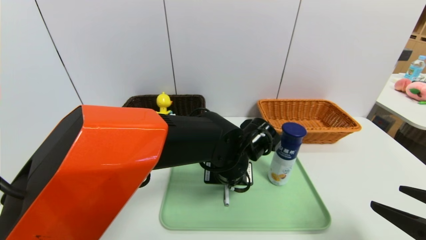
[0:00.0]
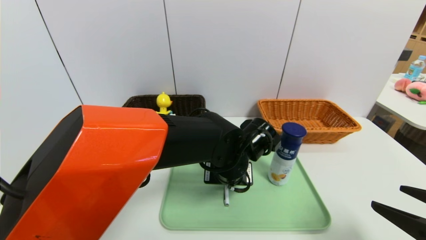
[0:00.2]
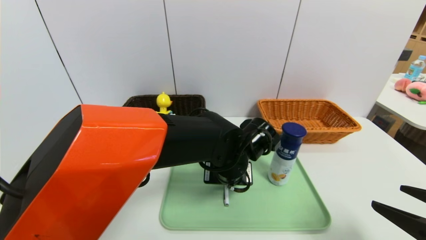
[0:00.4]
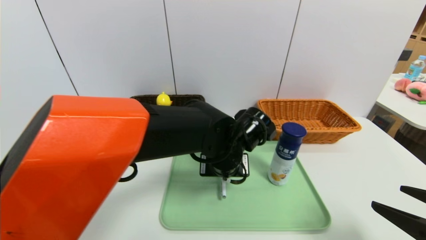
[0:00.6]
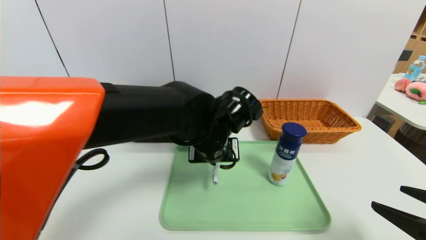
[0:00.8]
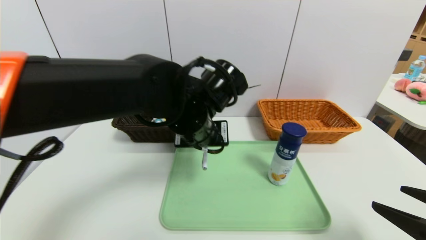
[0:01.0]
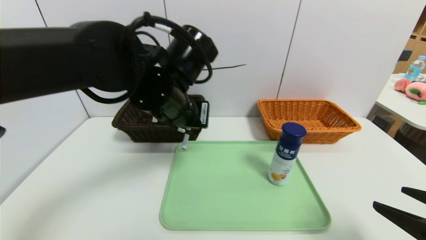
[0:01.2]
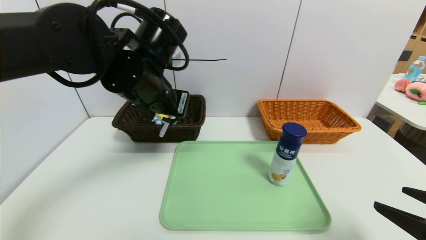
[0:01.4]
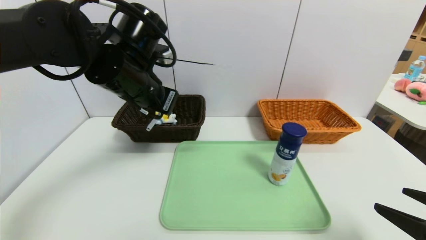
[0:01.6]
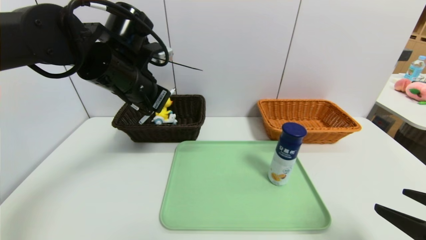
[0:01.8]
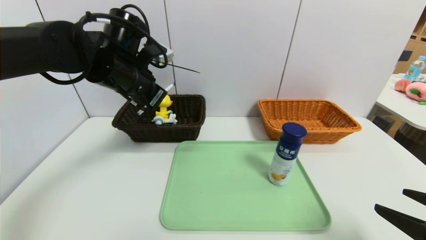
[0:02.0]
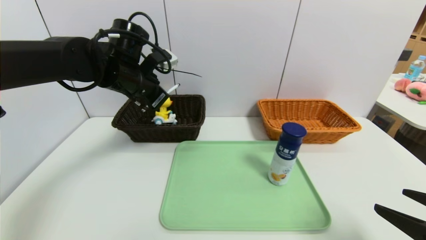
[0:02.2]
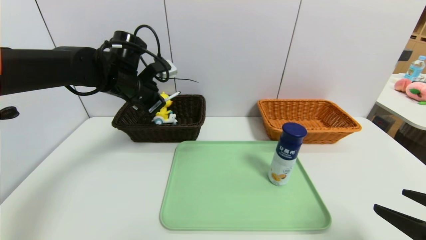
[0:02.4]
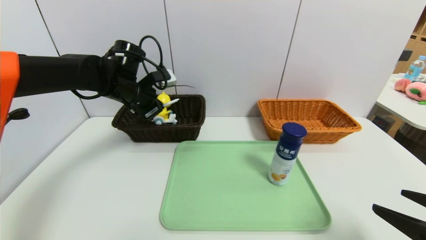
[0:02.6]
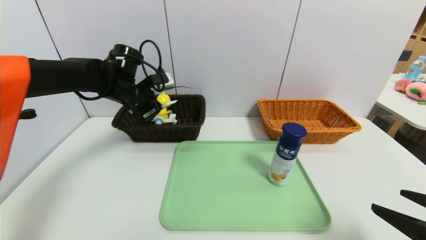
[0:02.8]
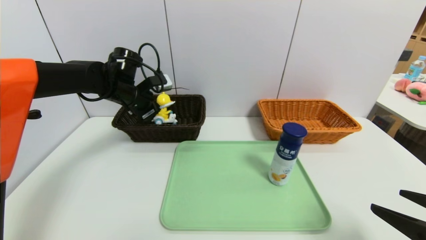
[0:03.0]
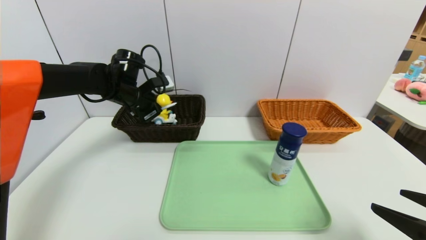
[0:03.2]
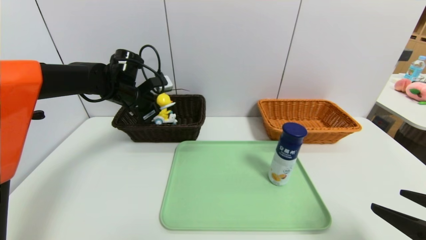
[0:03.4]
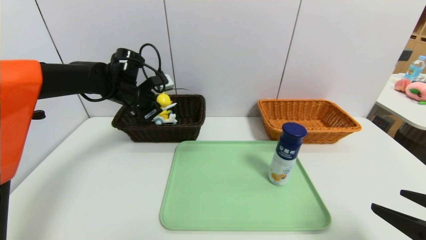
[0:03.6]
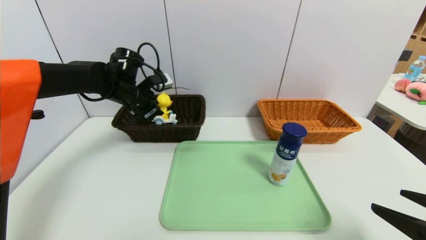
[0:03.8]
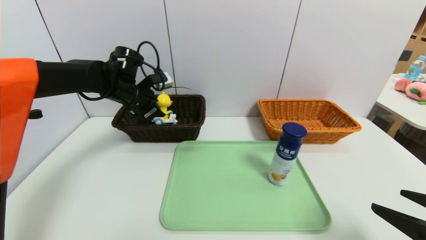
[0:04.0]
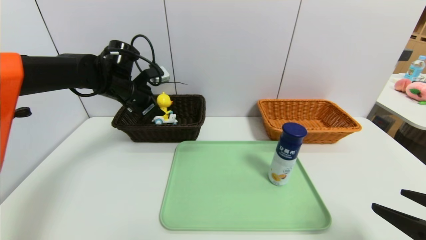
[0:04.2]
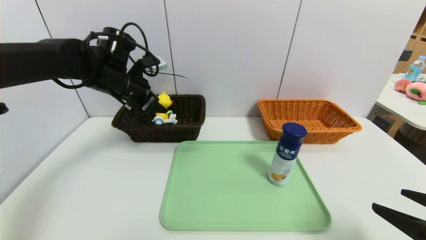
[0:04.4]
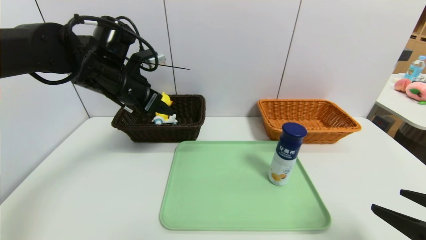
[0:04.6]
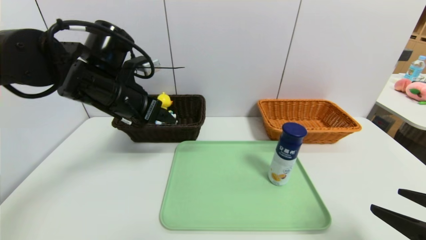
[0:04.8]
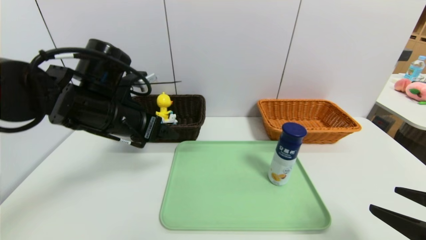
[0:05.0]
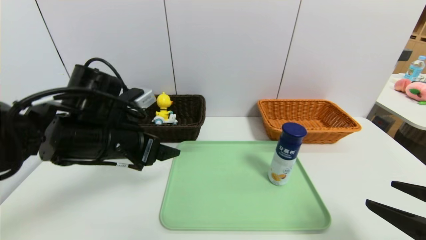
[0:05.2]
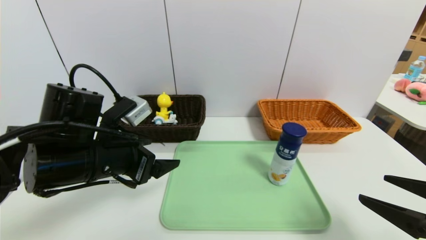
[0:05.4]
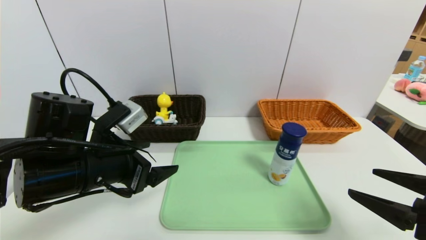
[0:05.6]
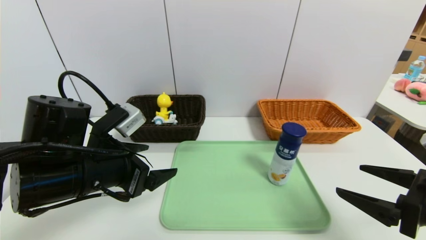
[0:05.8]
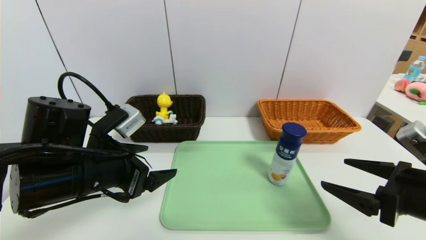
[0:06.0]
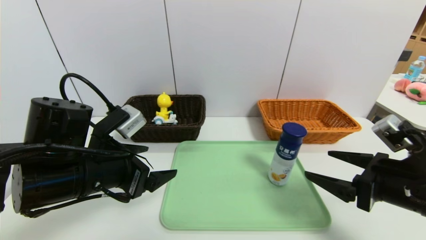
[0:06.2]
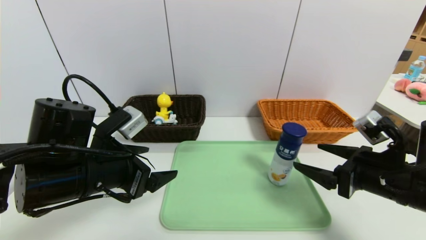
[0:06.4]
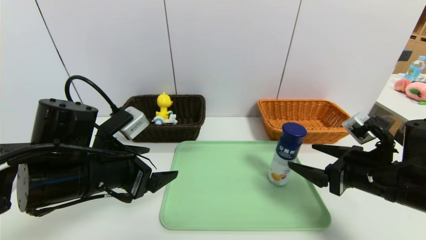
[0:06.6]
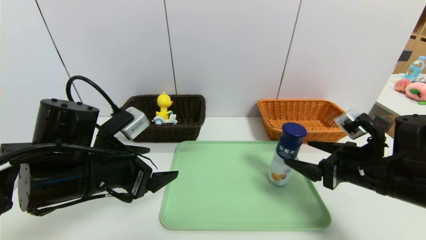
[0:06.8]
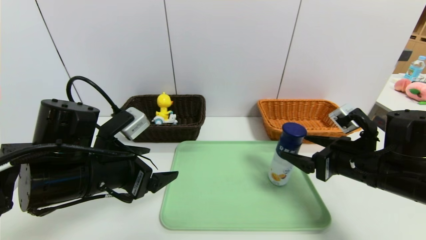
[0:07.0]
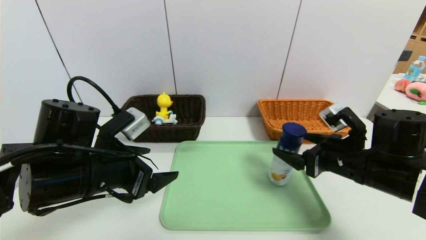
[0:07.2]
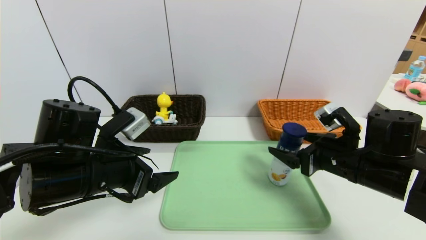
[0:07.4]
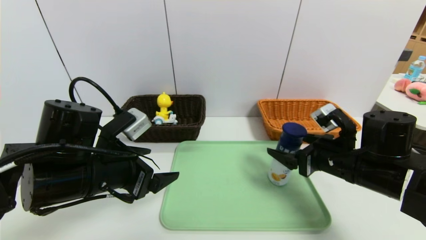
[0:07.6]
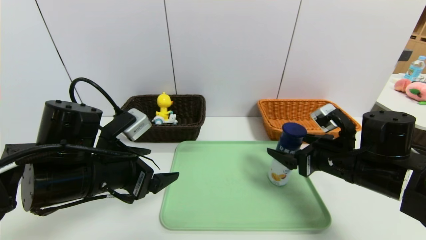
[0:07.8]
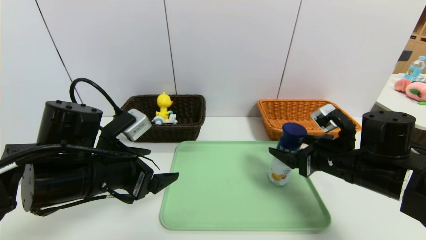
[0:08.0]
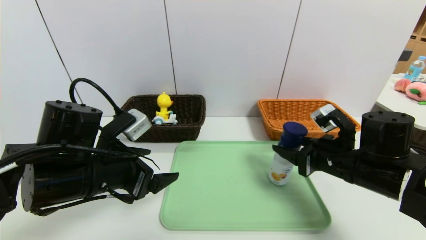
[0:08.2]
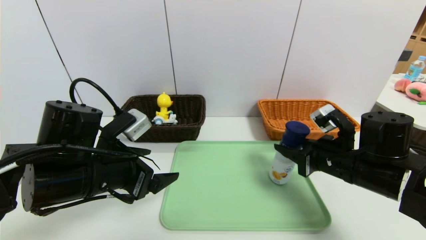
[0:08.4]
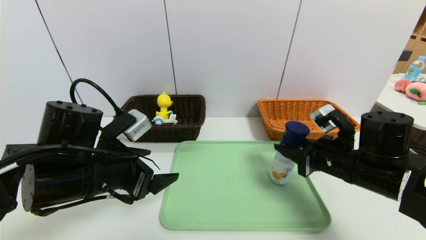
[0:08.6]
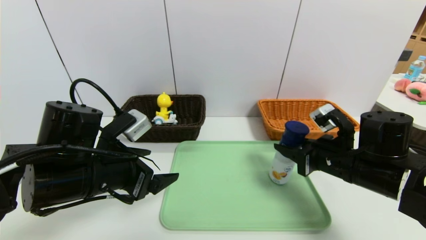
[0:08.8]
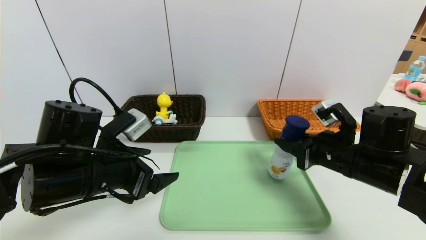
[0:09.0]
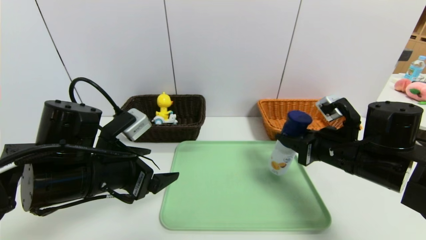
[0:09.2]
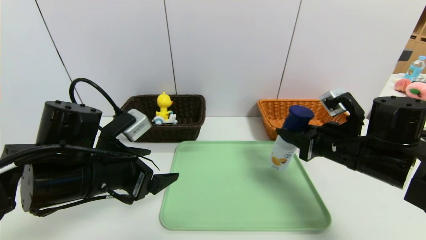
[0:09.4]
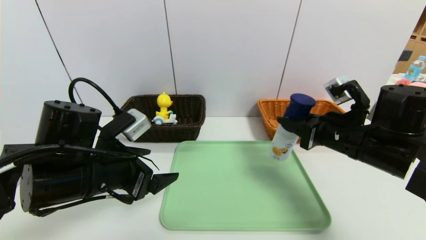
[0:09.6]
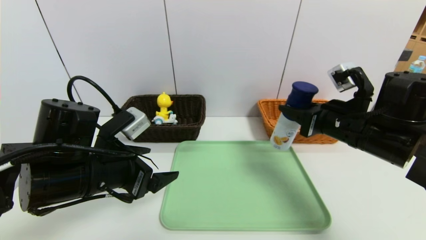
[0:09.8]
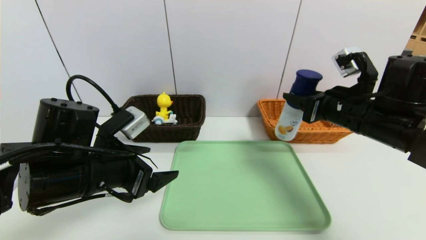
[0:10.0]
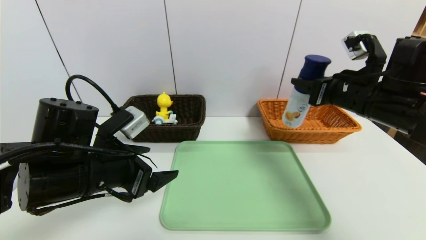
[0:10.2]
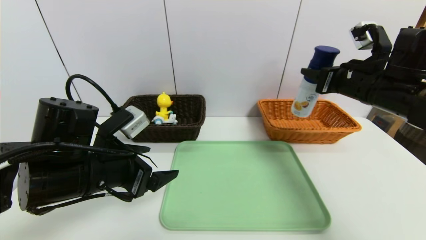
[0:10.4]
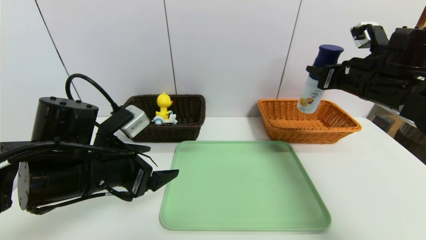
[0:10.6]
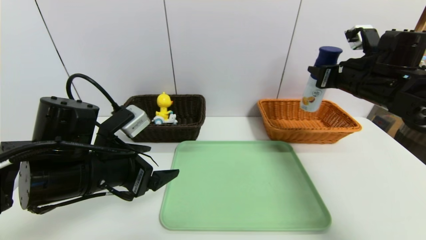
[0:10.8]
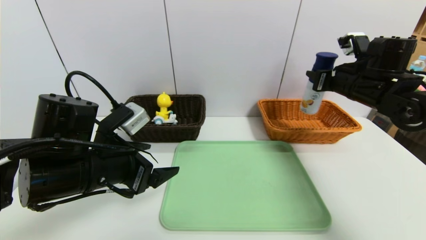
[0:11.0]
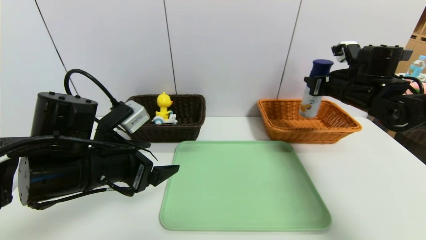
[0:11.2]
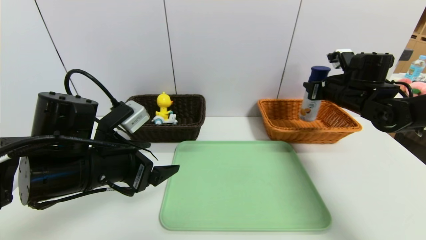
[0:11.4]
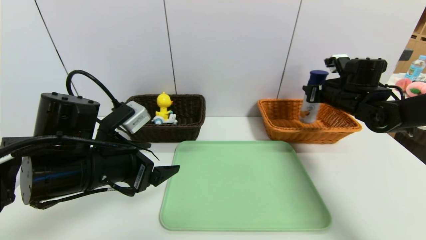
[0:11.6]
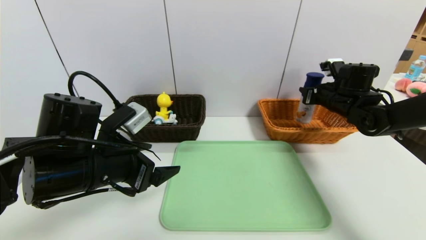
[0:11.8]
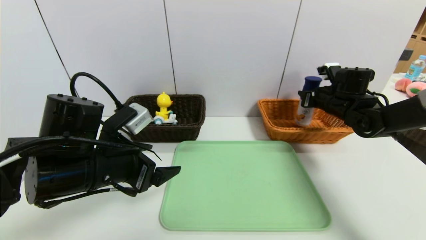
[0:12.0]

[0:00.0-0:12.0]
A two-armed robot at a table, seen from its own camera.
Task of the whole recording: place the food in the right basket with the right gripper, and place the non food items in the left basket with the left gripper.
Step, 0:00.0 to 0:04.0: Grasp the black marker and put it in the left basket.
0:00.0 to 0:01.6: The left gripper moves to the left and upward, some 25 cm.
0:01.6 to 0:03.0: The left gripper heads forward, downward and to the left, covering about 15 cm.
0:03.0 to 0:04.4: The left gripper moves approximately 5 cm, and opens its fingers.
0:04.4 to 0:06.0: The left gripper heads backward, covering about 20 cm. The right gripper heads forward, covering some 5 cm.
0:06.0 to 0:07.6: The right gripper shifts some 10 cm forward and to the left.
0:07.6 to 0:09.0: The right gripper closes.
0:09.0 to 0:10.4: The right gripper moves upward and forward, approximately 10 cm.
0:10.4 to 0:12.0: The right gripper shifts approximately 15 cm forward and downward.

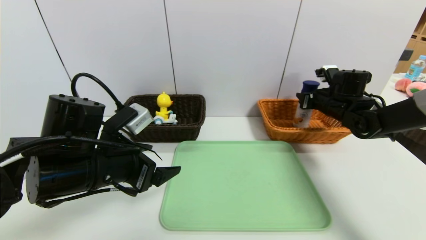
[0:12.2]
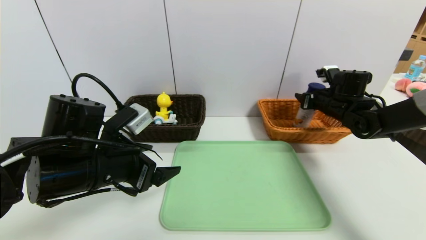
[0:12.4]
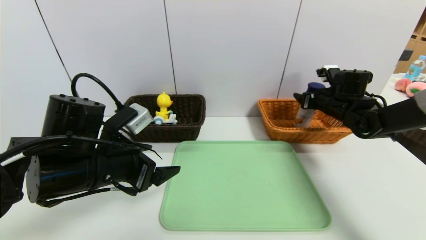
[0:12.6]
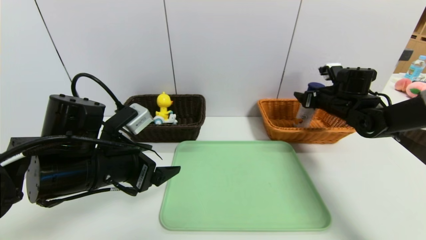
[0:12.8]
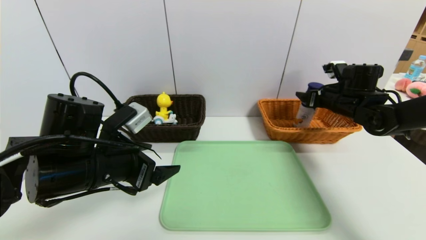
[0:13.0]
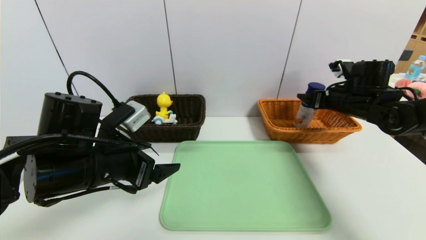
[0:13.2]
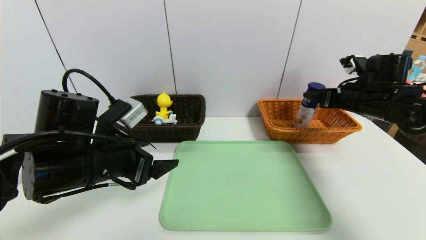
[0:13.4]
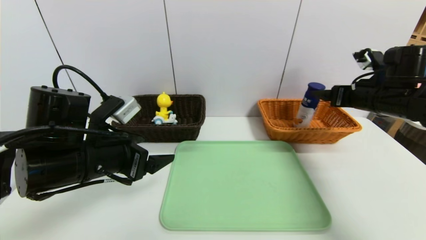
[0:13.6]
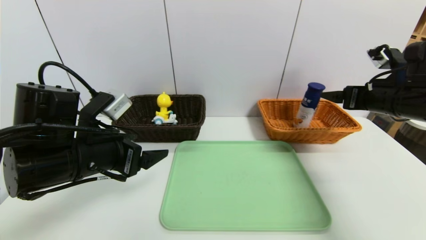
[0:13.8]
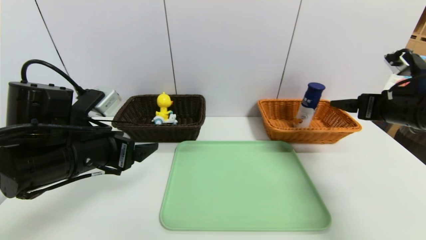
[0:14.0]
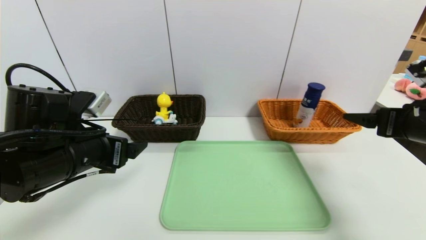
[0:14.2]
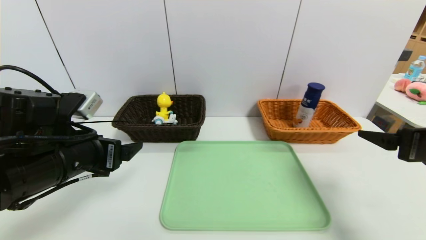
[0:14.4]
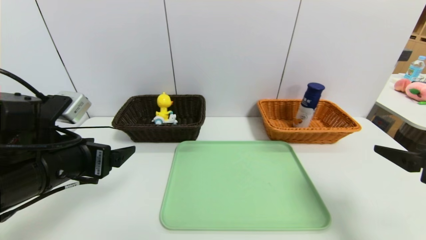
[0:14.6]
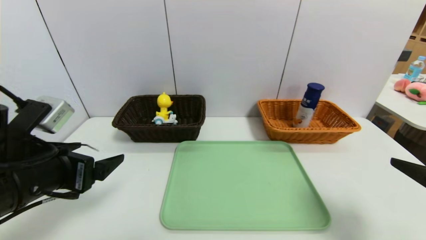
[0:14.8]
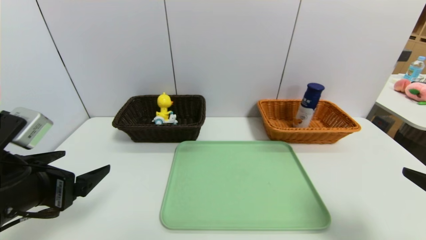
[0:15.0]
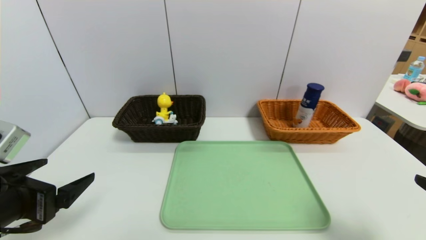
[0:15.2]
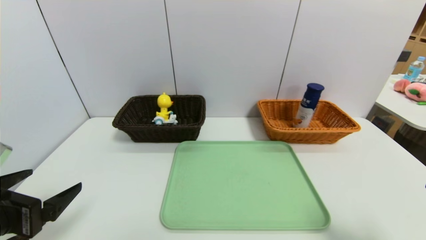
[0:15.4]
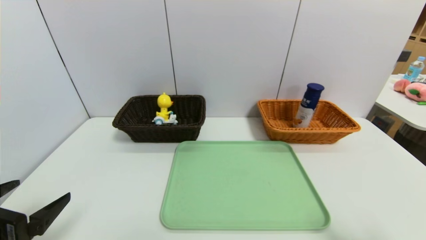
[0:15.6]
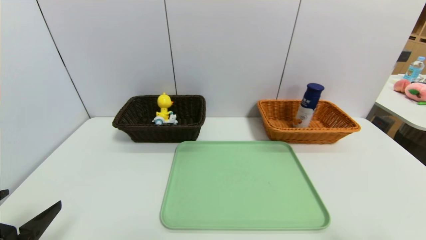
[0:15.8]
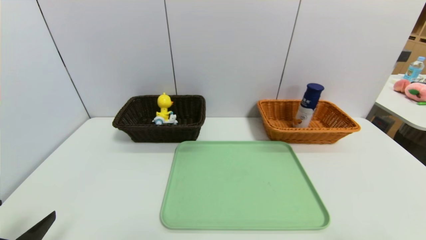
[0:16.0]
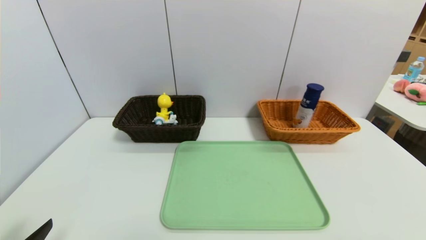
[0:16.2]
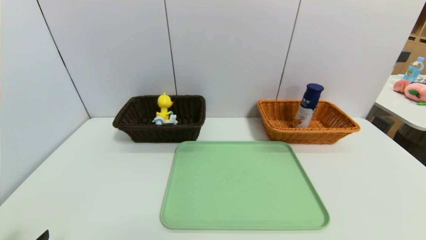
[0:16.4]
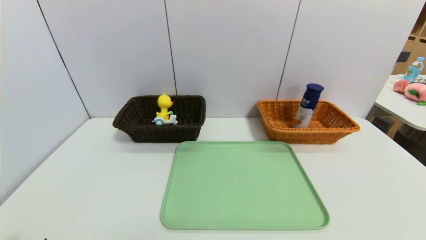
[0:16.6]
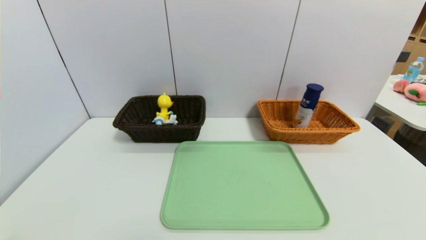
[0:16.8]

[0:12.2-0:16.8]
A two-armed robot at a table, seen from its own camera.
Task of the whole recording: place the food in the right basket with the right gripper, and place the non food items in the left basket with the left gripper.
0:12.2 to 0:13.8: The right gripper moves backward and upward, some 15 cm, and opens up.
0:13.8 to 0:15.2: The right gripper moves backward, about 25 cm. The left gripper travels backward and to the left by about 10 cm.
0:15.2 to 0:16.8: The two grippers go about 10 cm backward and downward.
